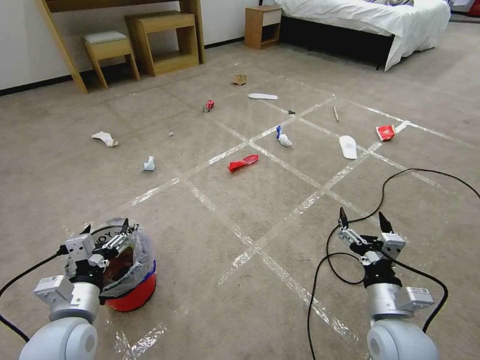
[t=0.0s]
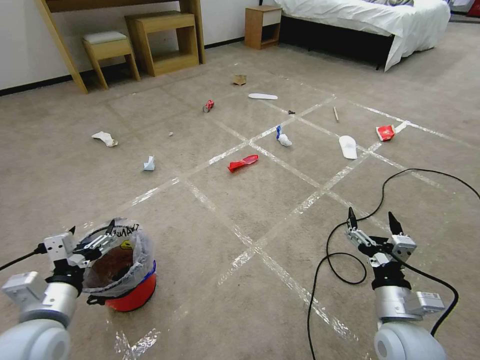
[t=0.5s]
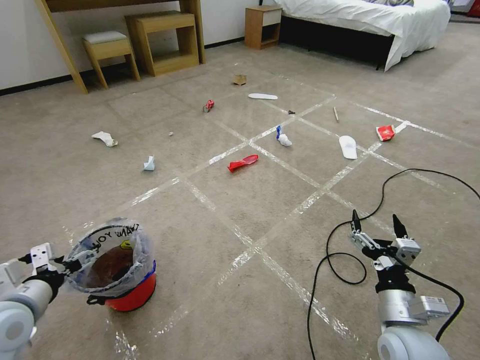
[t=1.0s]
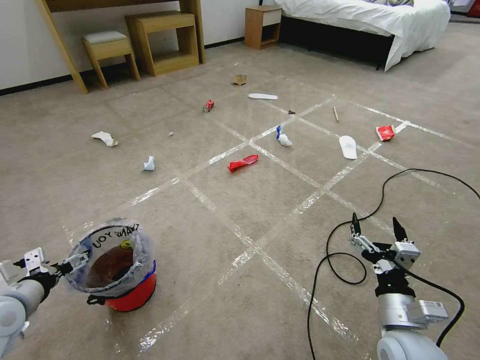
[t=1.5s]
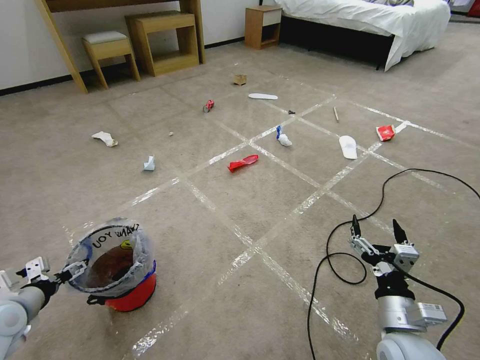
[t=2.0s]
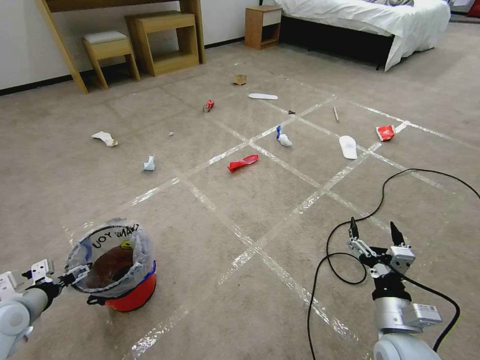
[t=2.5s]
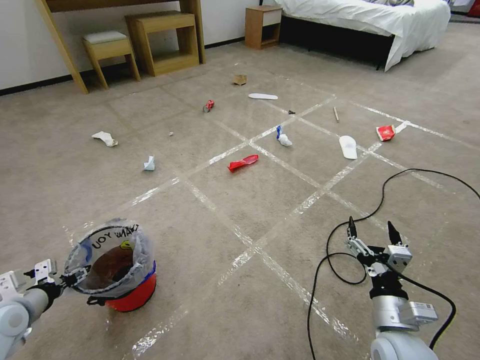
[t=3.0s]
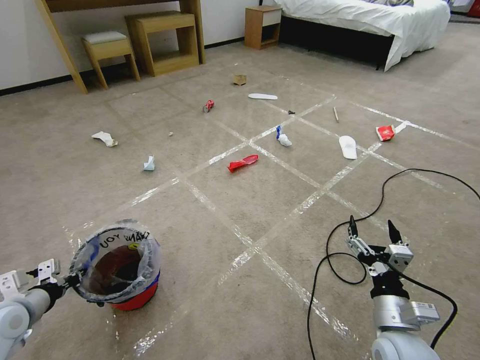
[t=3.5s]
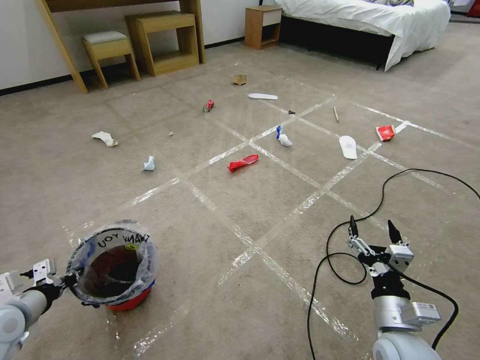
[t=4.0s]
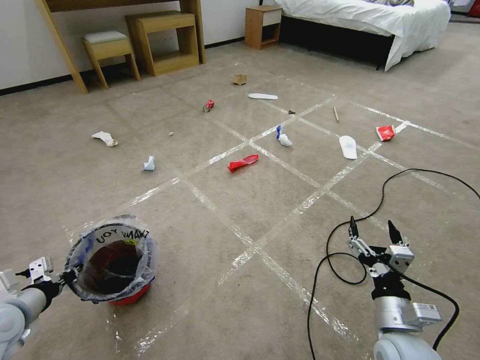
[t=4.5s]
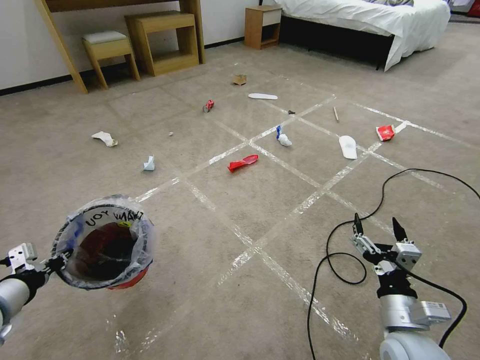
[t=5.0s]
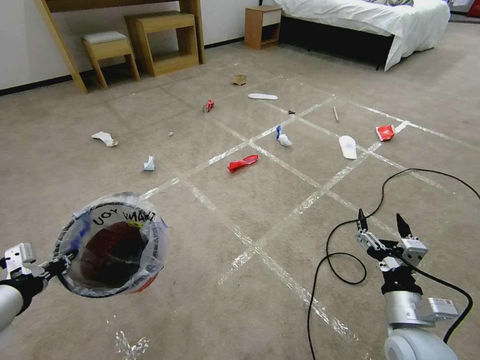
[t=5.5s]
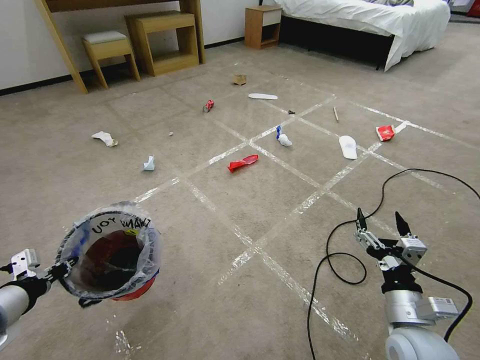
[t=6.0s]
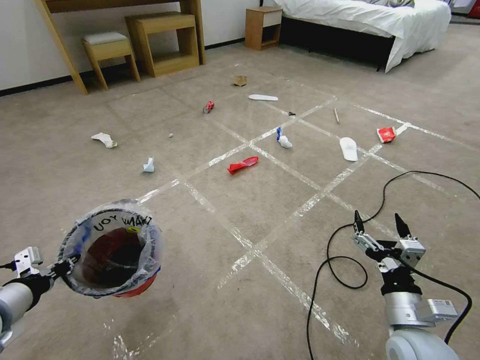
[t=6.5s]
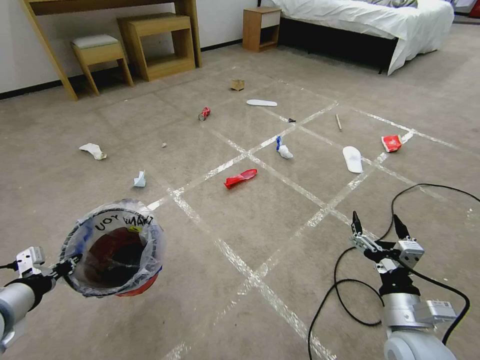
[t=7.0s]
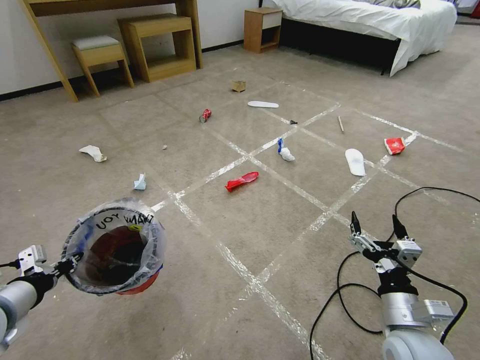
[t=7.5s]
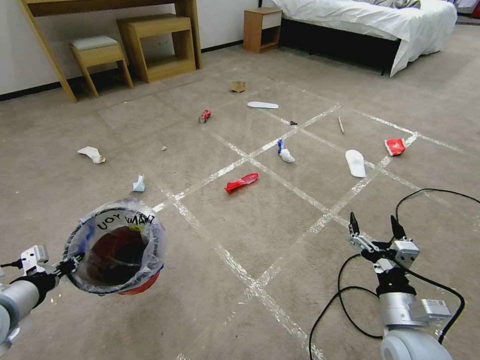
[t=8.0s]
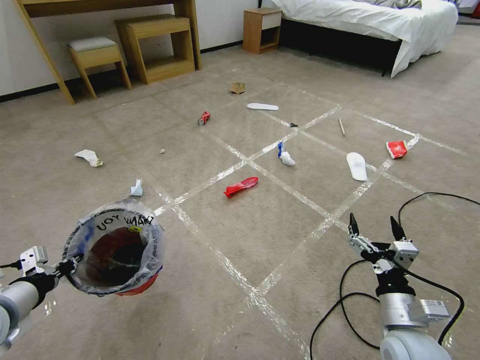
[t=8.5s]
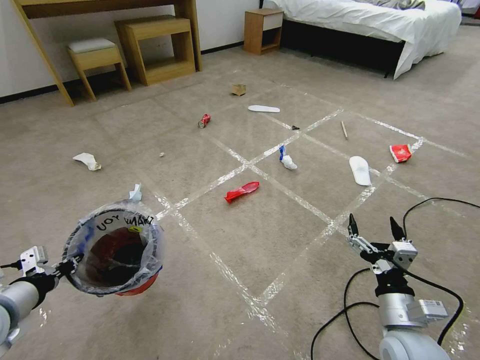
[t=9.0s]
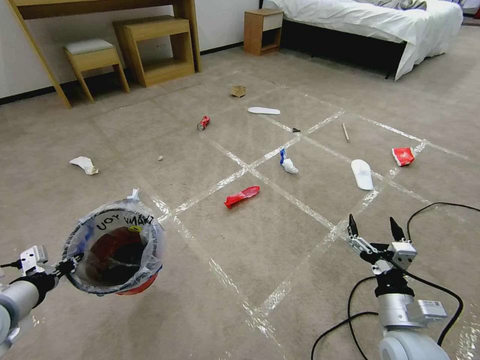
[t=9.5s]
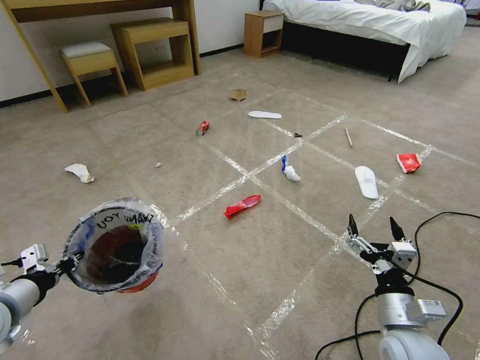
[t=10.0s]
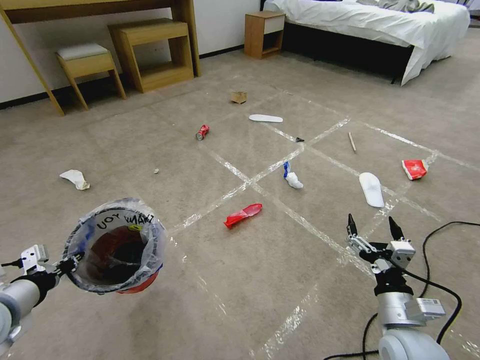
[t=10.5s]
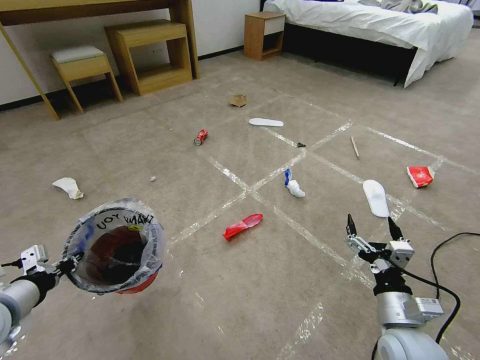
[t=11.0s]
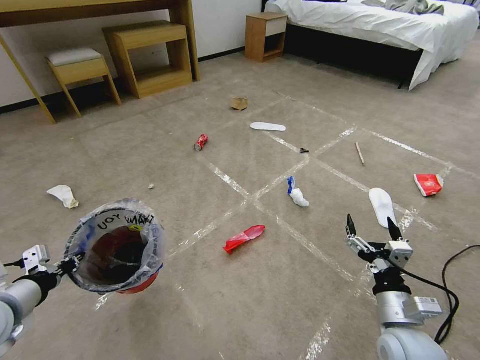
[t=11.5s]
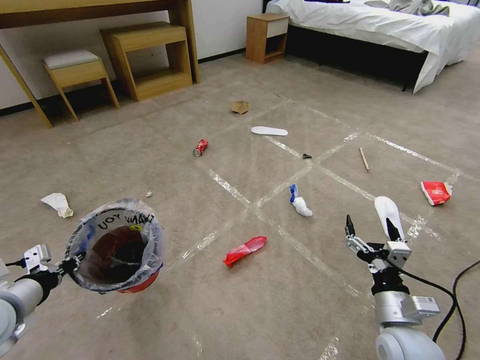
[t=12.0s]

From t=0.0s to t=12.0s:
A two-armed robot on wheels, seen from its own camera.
Task of the whole recording: Pick up the trash bin and place the garbage on the floor into it.
From t=2.0s to t=4.0s: The left gripper closes up.
From t=4.0s to t=6.0s: The left gripper is displaced upward by roughly 10 cm.

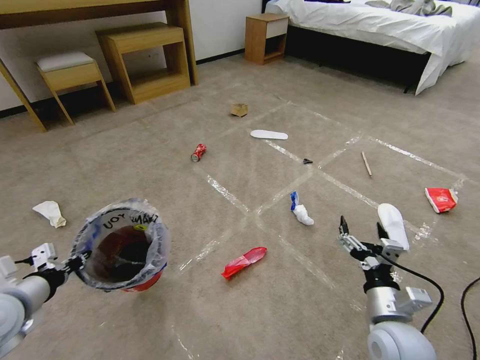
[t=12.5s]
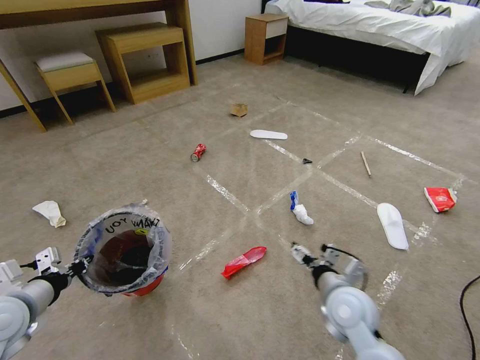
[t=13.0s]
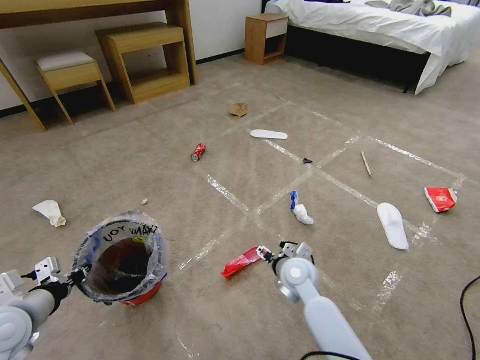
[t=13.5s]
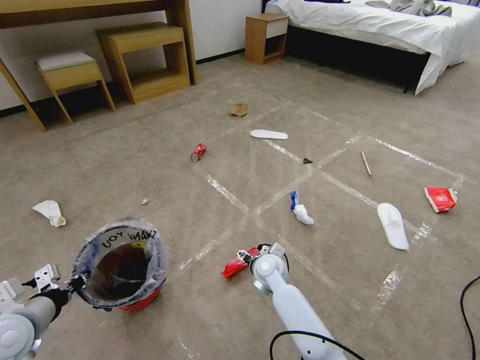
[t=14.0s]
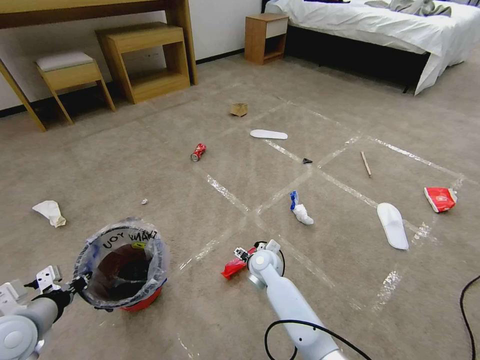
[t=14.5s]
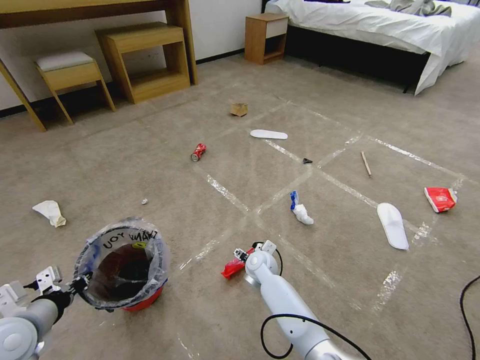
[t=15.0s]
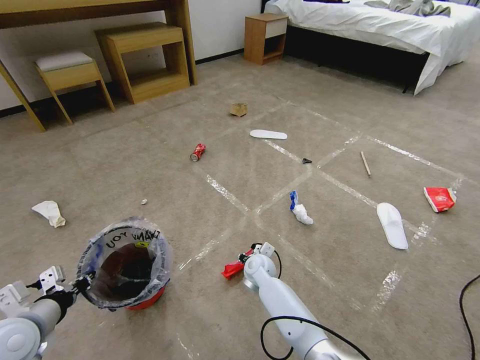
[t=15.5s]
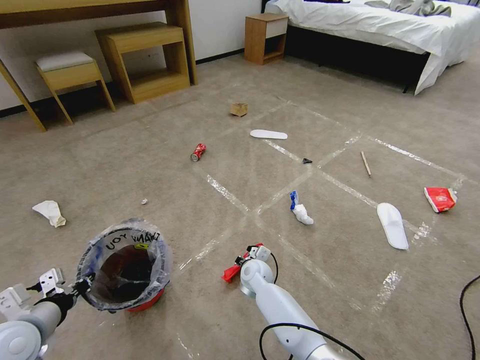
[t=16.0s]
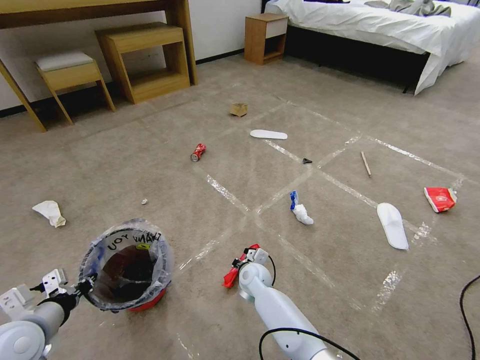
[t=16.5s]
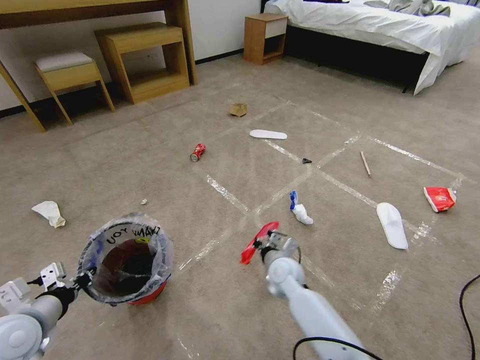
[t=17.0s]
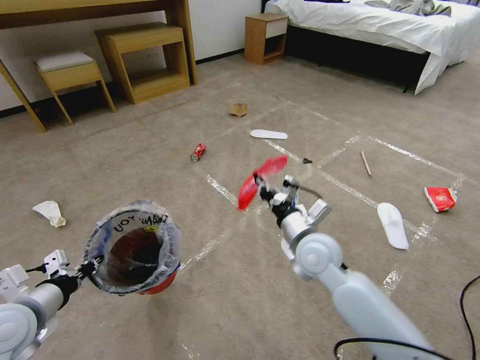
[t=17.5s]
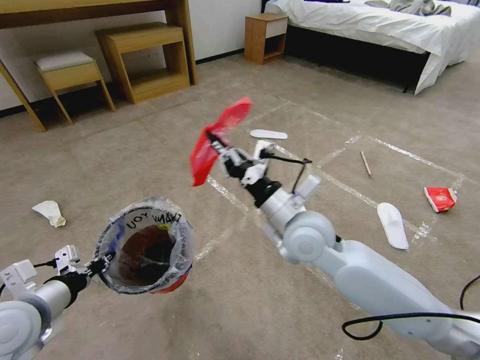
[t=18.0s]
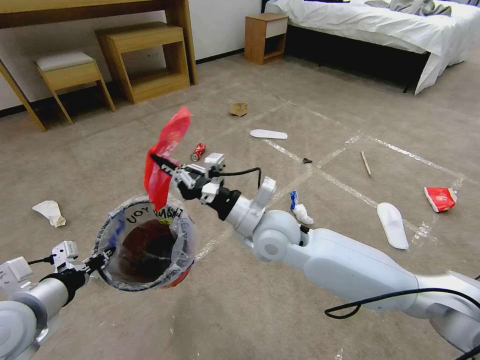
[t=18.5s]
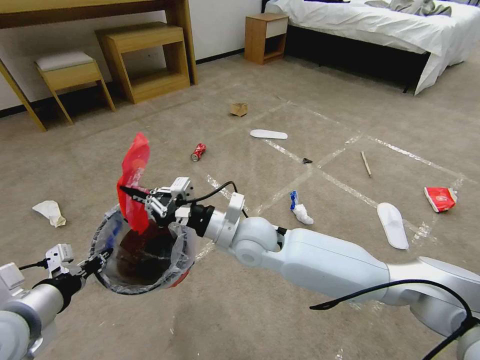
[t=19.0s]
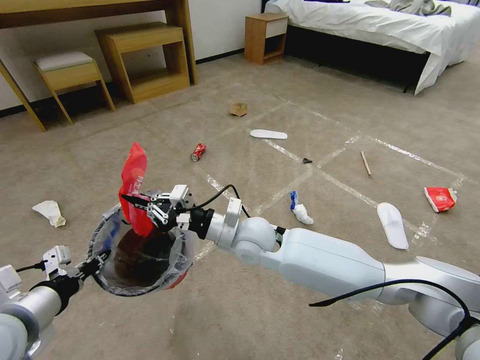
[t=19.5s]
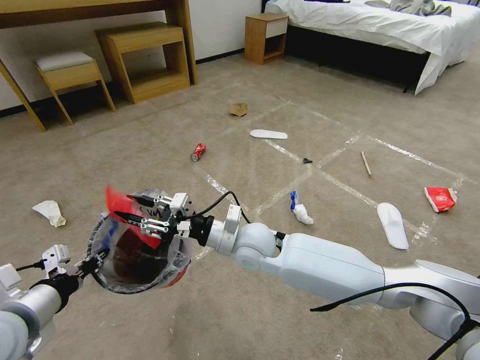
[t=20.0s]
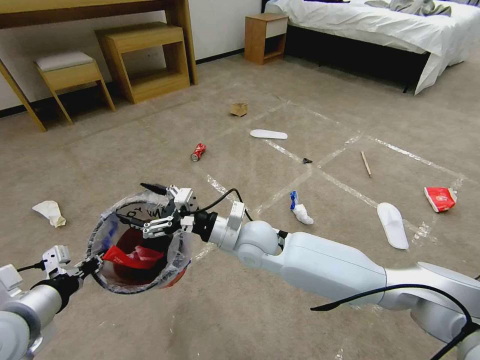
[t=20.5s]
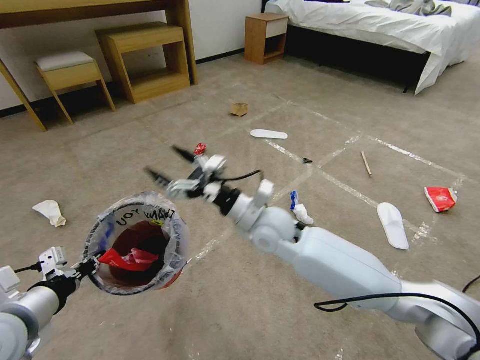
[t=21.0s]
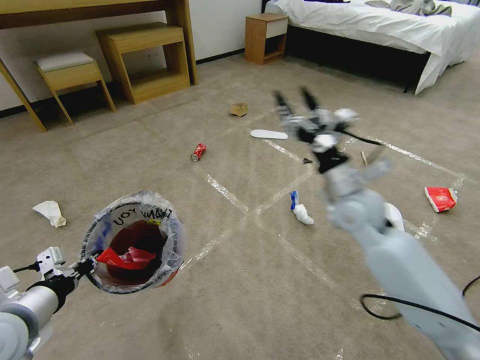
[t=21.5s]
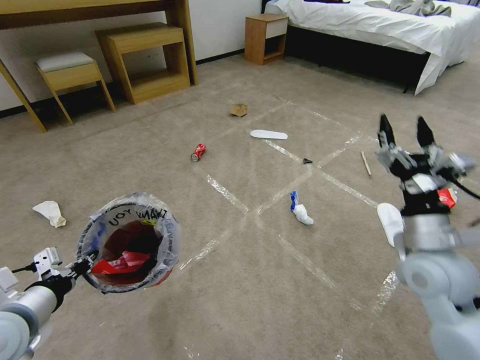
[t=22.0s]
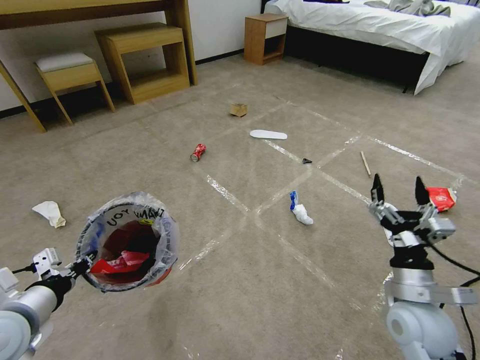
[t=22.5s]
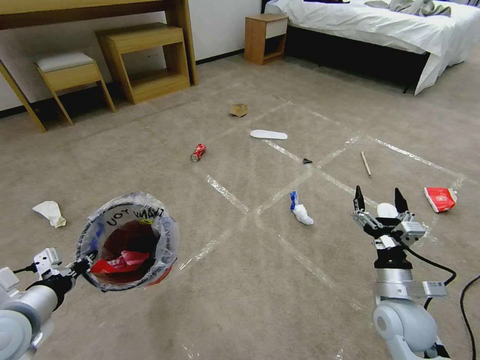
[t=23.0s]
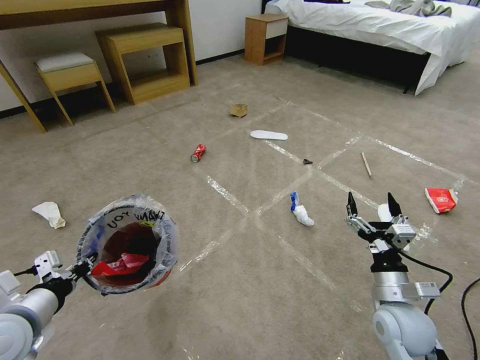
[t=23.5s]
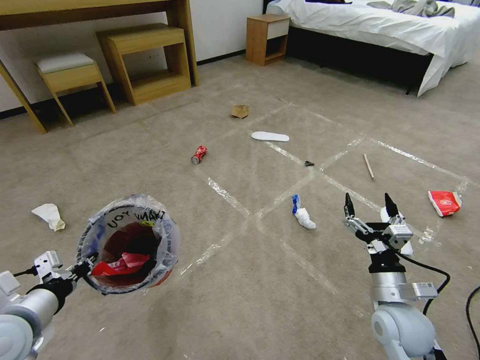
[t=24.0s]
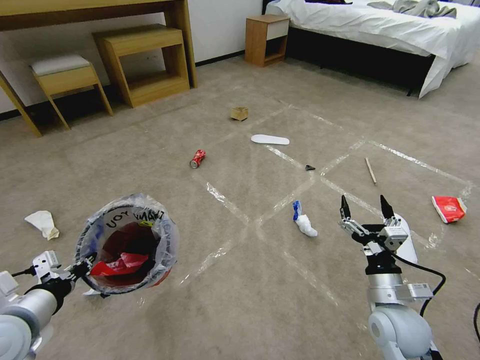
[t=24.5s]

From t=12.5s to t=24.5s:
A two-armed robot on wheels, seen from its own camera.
Task of the whole recording: Pick up the trash bin and place the garbage on the floor into it.
From t=12.5s to t=14.5s: The right gripper shifts approximately 35 cm forward, to the left and downward.
From t=14.5s to t=16.5s: The right gripper changes place by approximately 5 cm, and closes up.
From t=16.5s to t=18.5s: The left gripper shifts about 10 cm upward. Meanwhile the right gripper travels upward by roughly 30 cm.
From t=18.5s to t=20.5s: The right gripper shifts roughly 5 cm downward, and opens up.
From t=20.5s to t=22.5s: The right gripper shifts some 35 cm to the right and backward.
From t=22.5s to t=24.5s: The grippers move only a little.

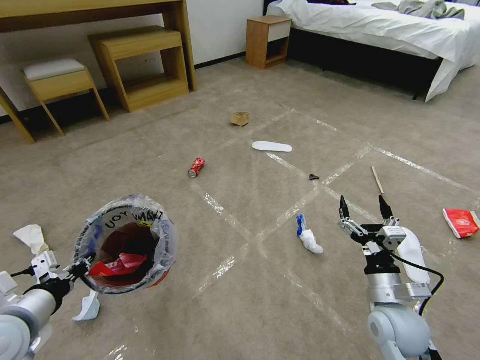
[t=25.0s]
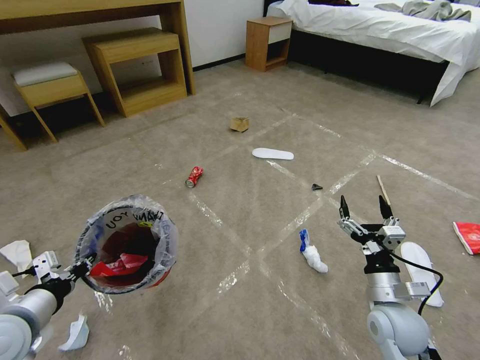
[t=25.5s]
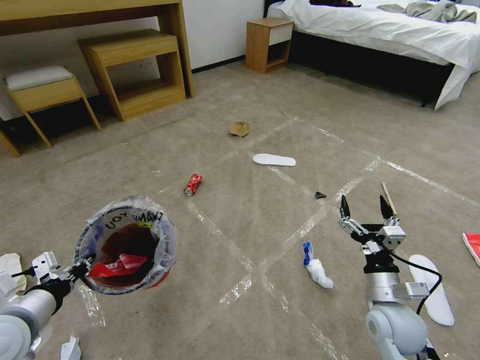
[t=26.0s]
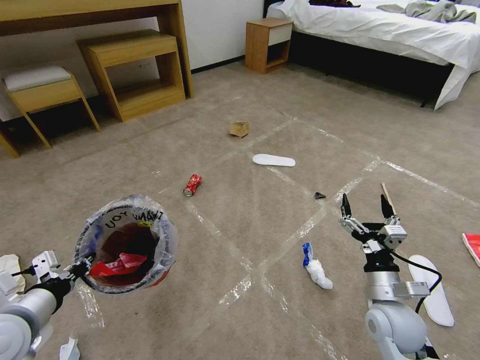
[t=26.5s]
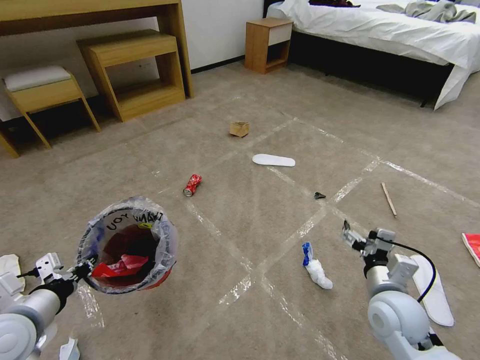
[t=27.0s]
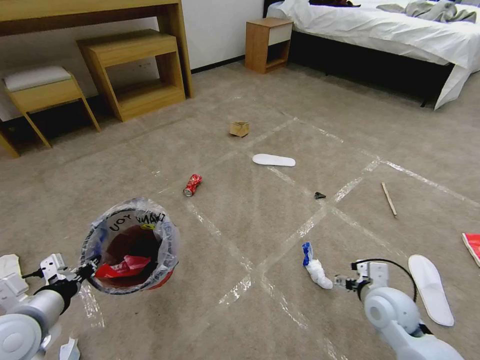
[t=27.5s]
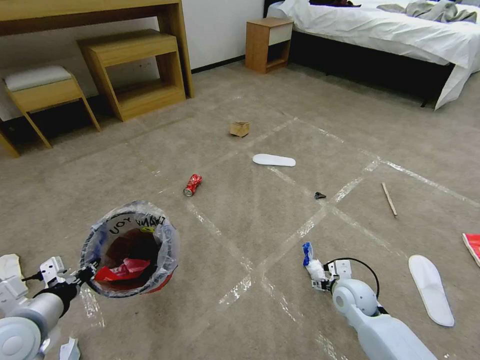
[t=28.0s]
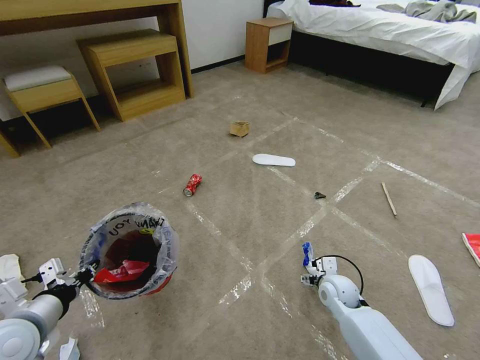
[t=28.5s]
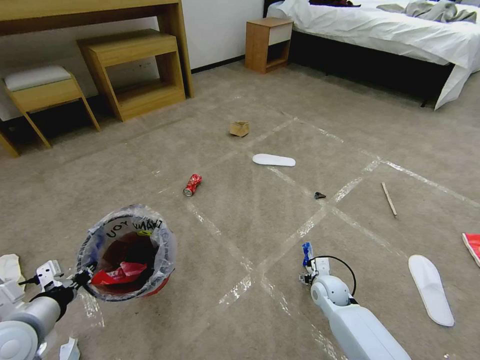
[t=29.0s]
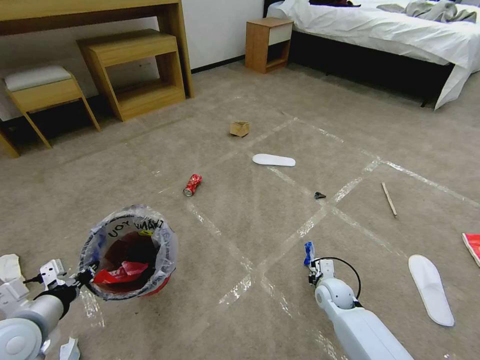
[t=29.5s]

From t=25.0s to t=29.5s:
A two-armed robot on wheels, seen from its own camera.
Task of the whole recording: Pick up the trash bin and place the garbage on the floor into it.
From t=27.0s to t=29.5s: The right gripper shifts roughly 20 cm downward and forward, and closes its fingers.
